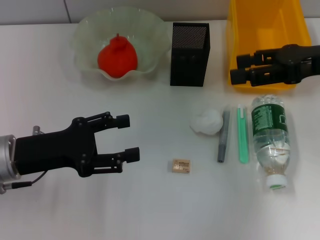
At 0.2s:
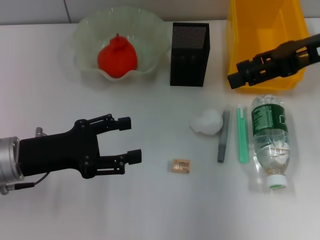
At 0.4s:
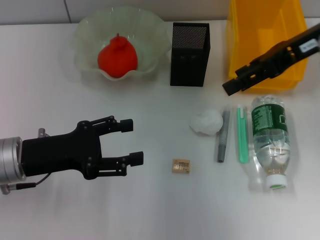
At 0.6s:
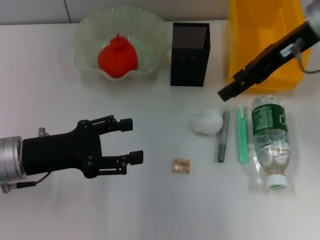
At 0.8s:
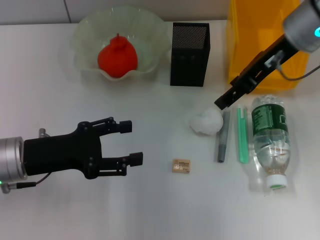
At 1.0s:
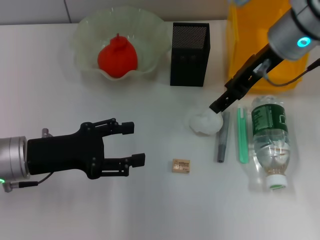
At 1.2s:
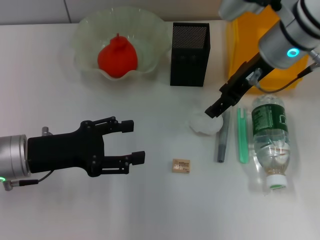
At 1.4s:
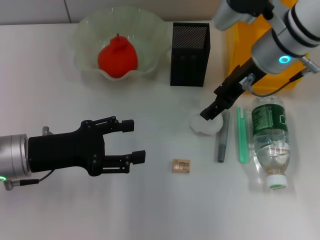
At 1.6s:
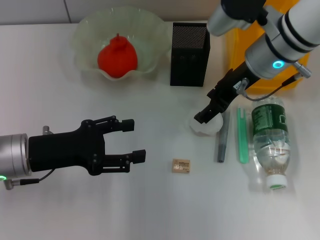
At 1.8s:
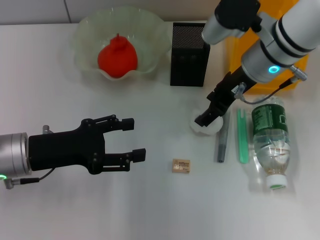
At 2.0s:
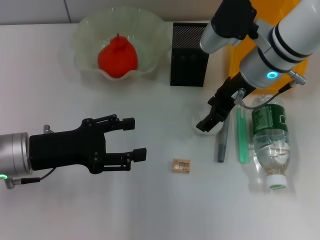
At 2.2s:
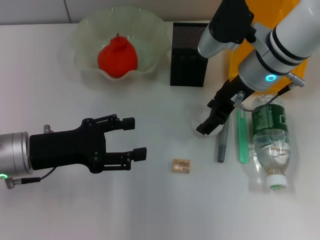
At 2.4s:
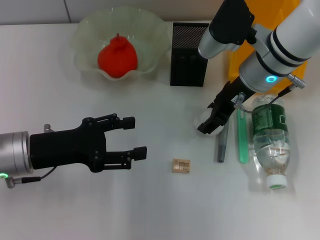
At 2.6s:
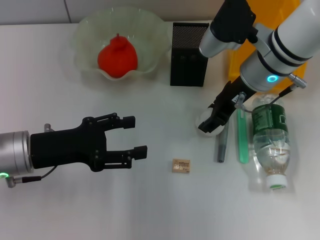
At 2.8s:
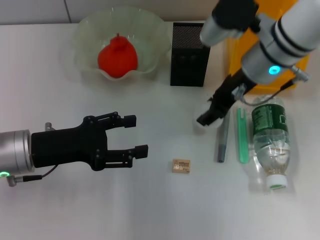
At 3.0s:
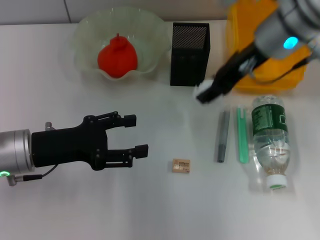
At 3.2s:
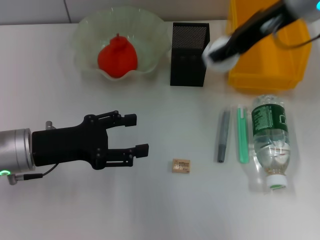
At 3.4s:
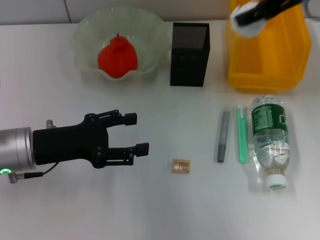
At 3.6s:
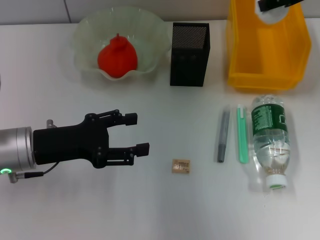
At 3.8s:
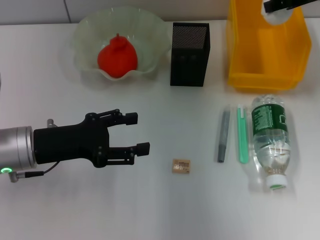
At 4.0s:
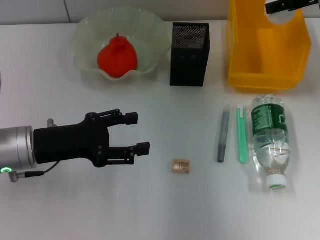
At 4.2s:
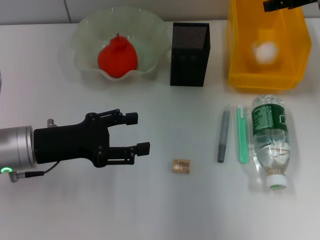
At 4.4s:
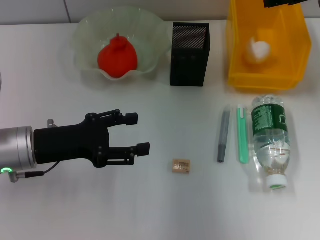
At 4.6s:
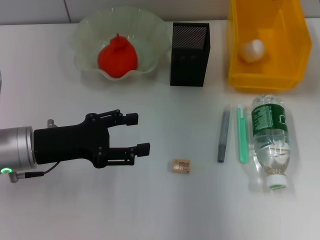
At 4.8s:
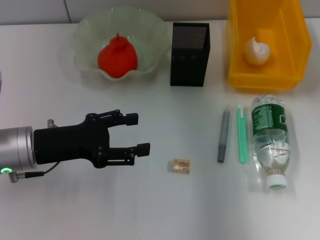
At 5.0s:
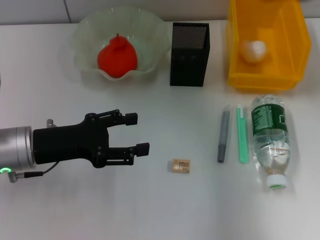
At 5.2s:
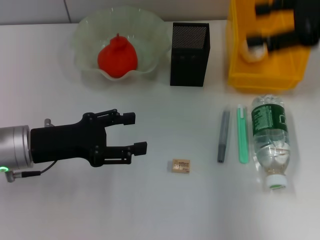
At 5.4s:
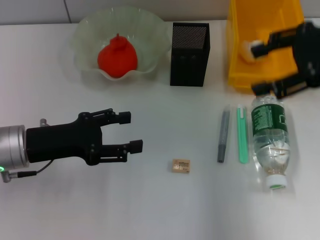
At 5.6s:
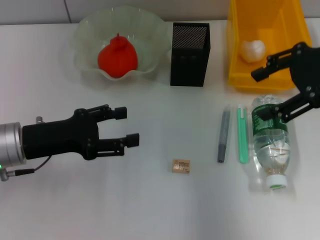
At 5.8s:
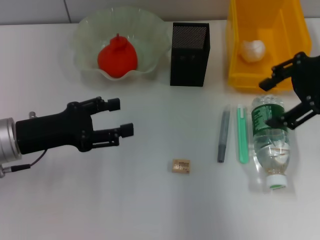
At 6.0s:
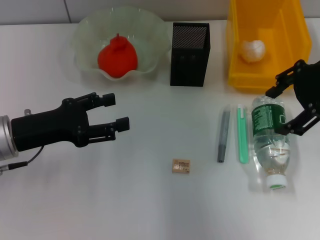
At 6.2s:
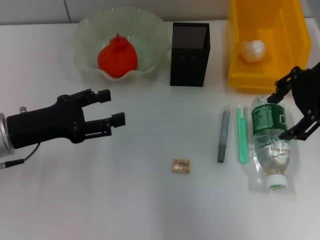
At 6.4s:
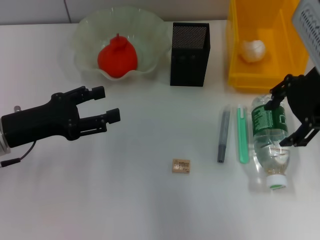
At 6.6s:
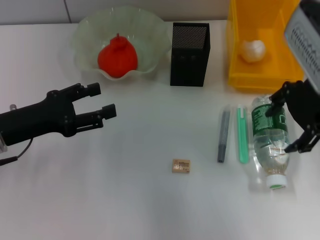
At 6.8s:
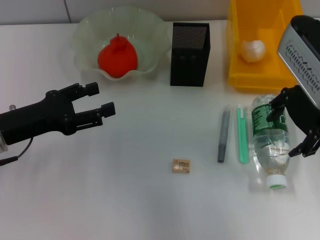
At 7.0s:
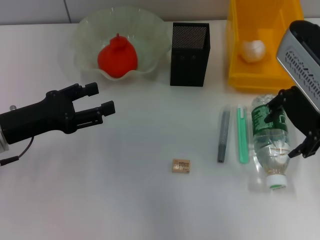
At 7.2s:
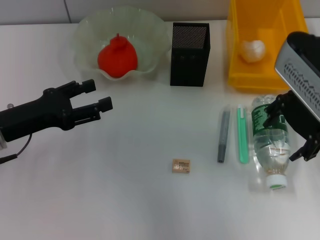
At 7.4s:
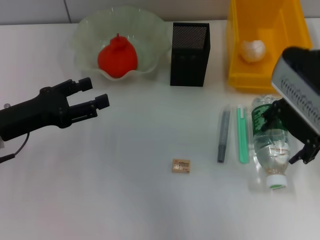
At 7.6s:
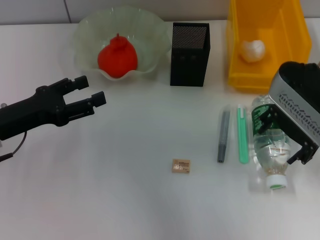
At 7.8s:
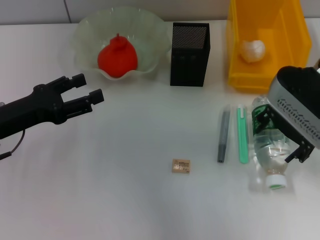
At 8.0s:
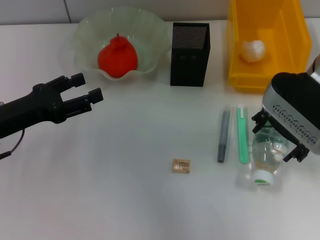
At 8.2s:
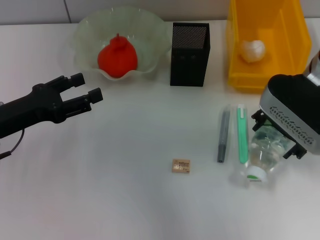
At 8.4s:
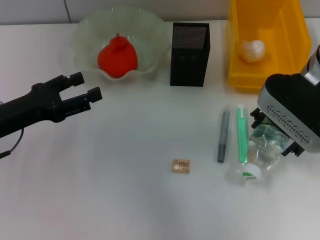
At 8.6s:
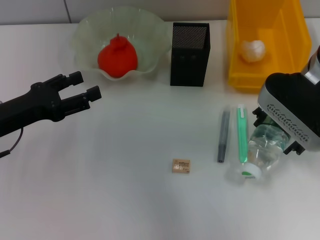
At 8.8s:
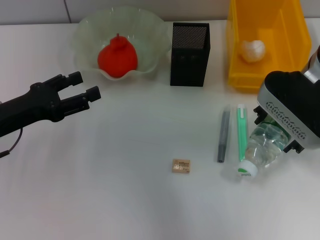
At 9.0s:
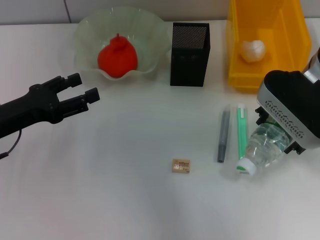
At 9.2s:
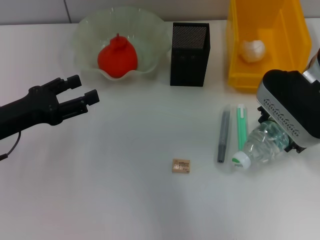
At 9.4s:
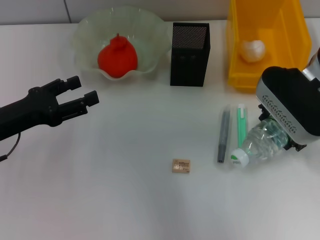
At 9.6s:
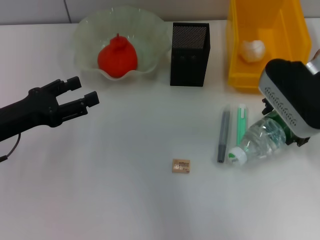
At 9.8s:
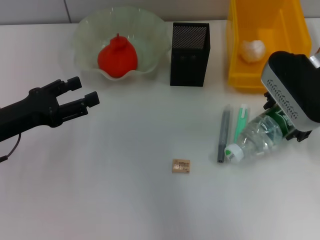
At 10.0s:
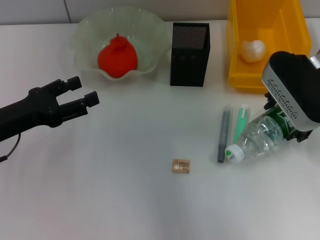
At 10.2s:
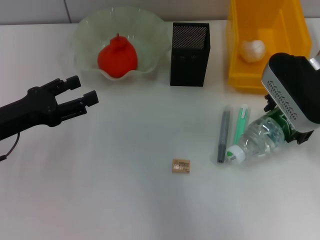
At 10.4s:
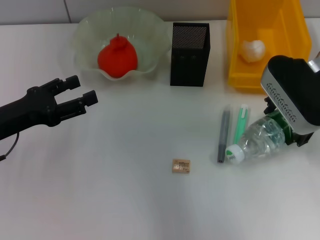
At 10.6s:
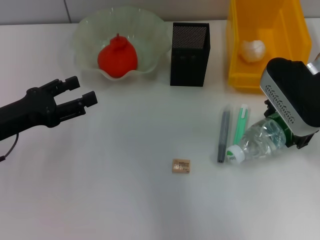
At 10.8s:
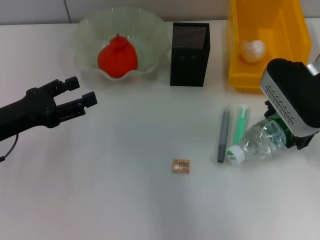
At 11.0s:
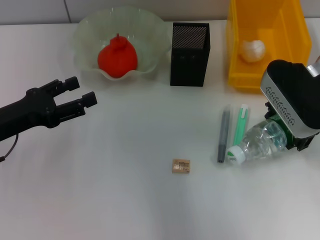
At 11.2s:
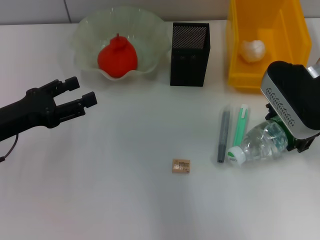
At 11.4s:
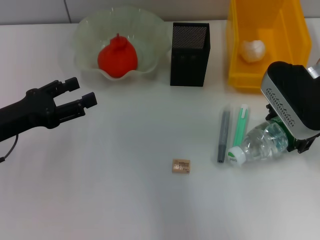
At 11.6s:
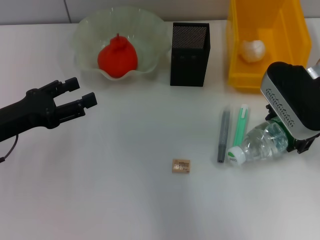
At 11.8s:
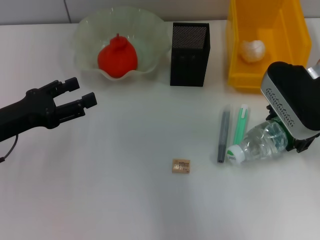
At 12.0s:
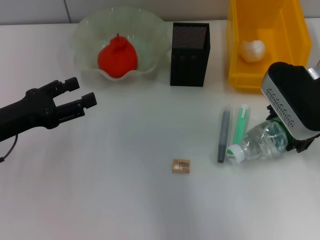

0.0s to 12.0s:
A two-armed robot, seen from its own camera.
Step, 0.0s to 2.6s: Grab the paper ball with the right hand.
Step, 2.8s to 4.2s: Place the paper ball into the trash can with the right hand.
0.0s to 1.6s: The right gripper travels to the left and forward by approximately 15 cm.
1.6s to 3.0s: The right gripper travels upward by some 5 cm.
3.0s to 4.4s: The right gripper is displaced to the right by approximately 10 cm, and opens its fingers.
4.4s to 6.0s: The right gripper shifts about 10 cm backward.
6.0s to 7.6s: The right gripper travels to the left by some 5 cm.
7.6s to 10.4s: The grippers make only small movements.
10.4s to 12.0s: Both grippers stay put.

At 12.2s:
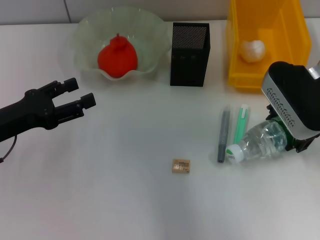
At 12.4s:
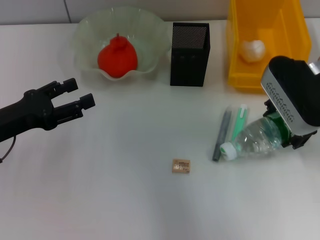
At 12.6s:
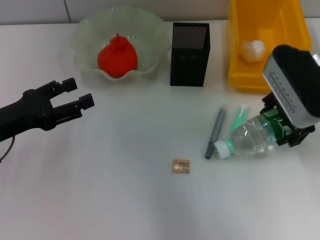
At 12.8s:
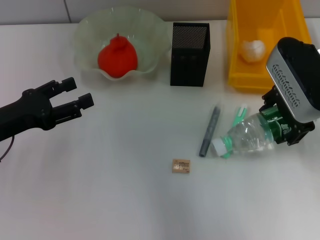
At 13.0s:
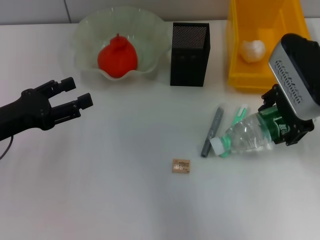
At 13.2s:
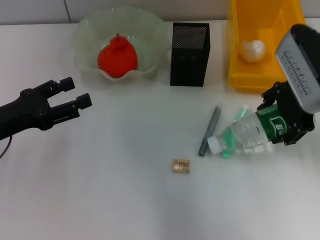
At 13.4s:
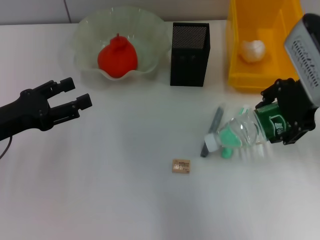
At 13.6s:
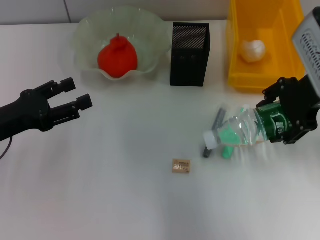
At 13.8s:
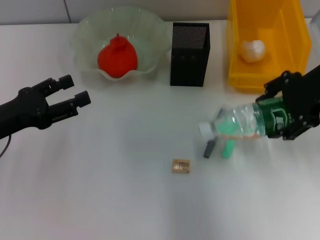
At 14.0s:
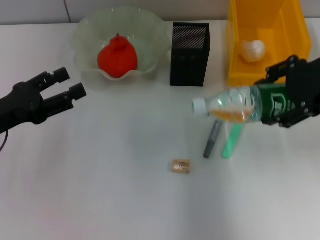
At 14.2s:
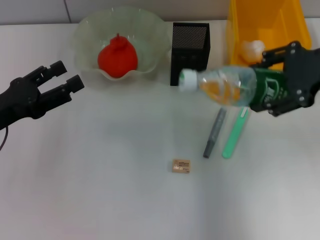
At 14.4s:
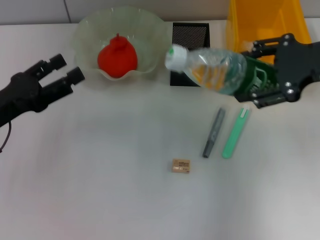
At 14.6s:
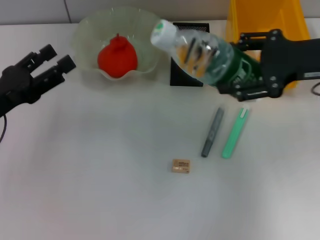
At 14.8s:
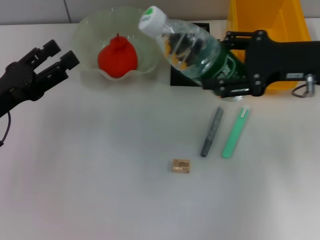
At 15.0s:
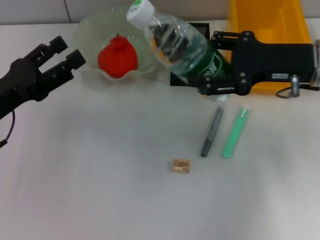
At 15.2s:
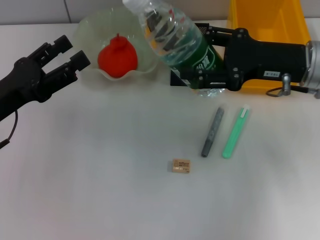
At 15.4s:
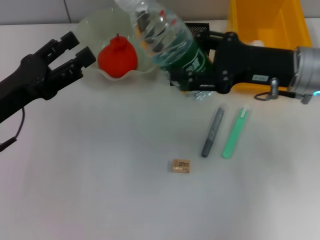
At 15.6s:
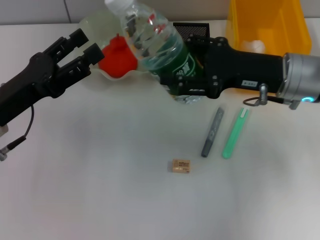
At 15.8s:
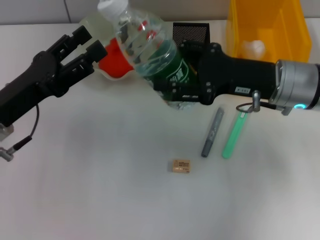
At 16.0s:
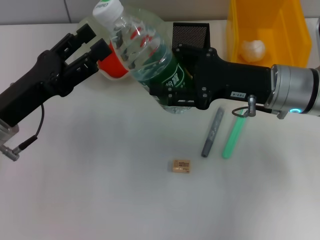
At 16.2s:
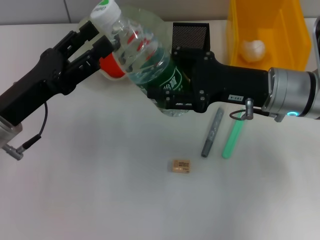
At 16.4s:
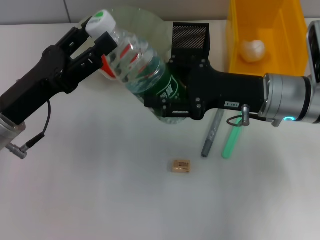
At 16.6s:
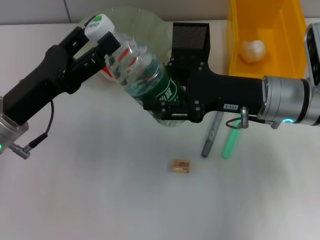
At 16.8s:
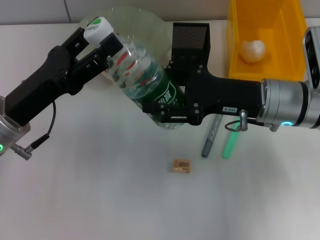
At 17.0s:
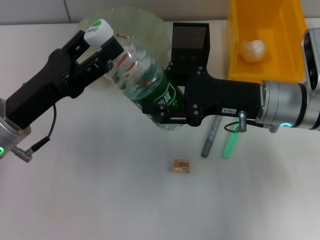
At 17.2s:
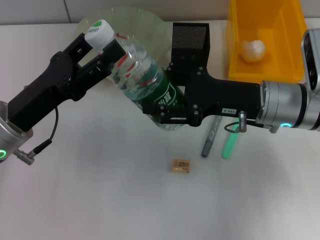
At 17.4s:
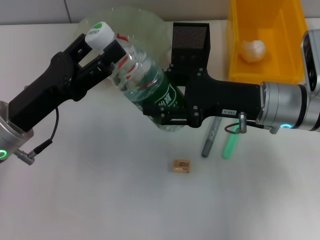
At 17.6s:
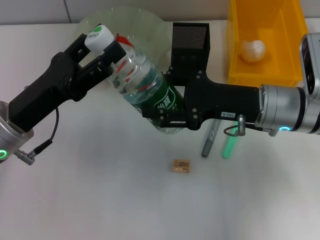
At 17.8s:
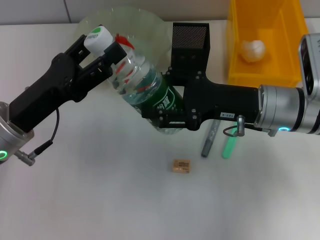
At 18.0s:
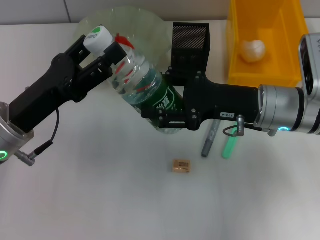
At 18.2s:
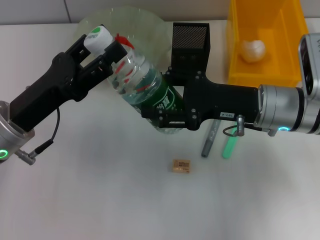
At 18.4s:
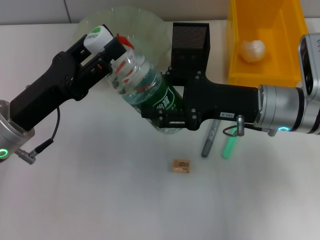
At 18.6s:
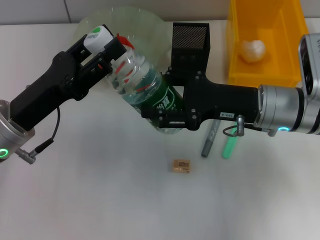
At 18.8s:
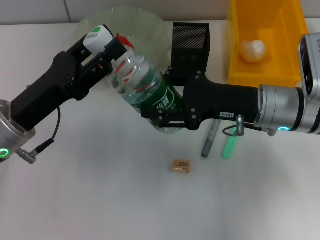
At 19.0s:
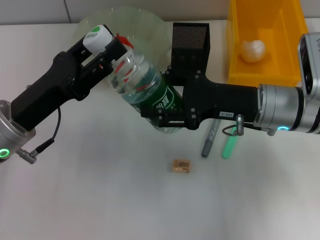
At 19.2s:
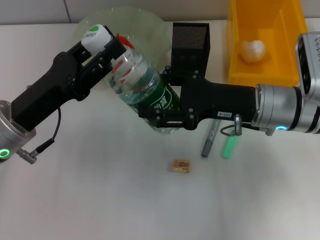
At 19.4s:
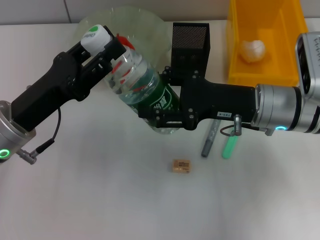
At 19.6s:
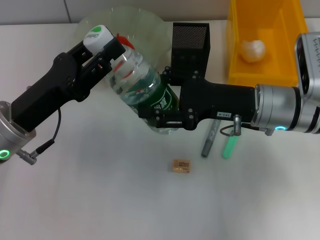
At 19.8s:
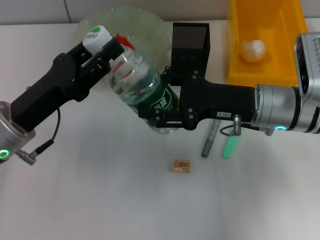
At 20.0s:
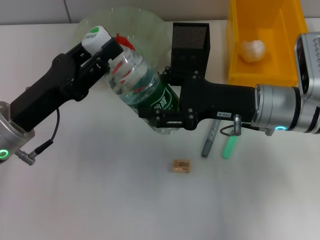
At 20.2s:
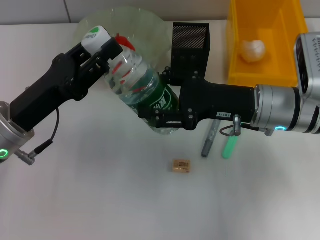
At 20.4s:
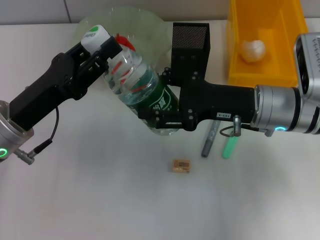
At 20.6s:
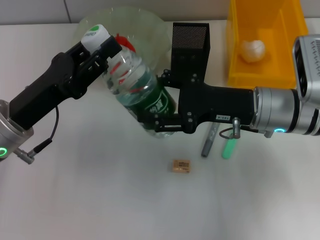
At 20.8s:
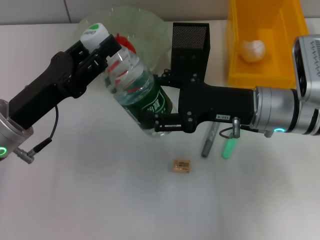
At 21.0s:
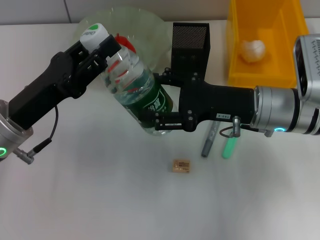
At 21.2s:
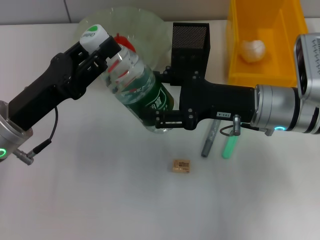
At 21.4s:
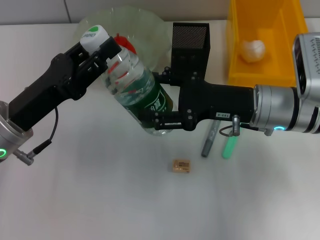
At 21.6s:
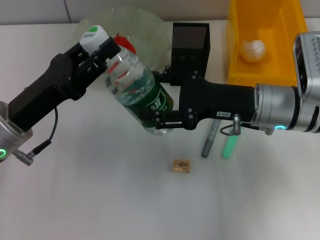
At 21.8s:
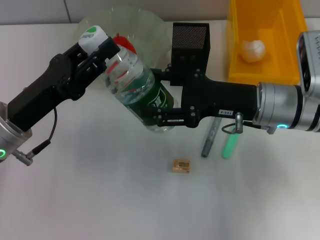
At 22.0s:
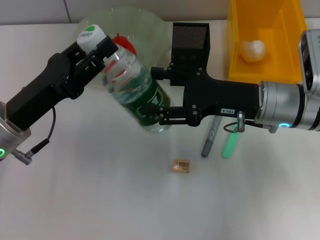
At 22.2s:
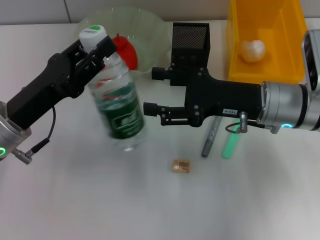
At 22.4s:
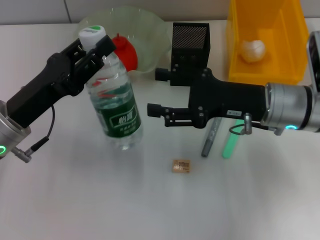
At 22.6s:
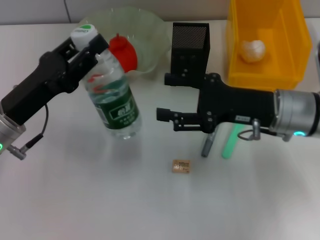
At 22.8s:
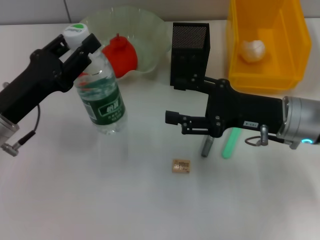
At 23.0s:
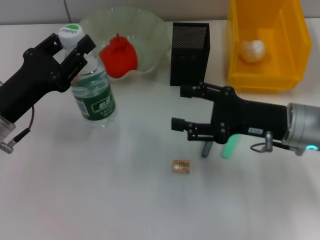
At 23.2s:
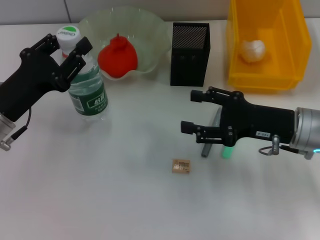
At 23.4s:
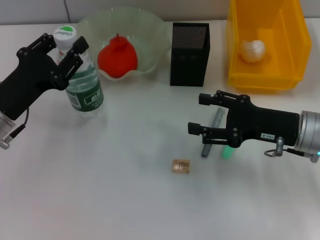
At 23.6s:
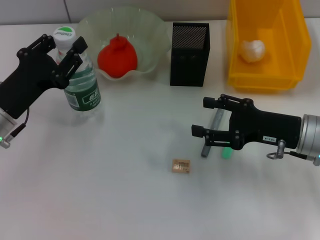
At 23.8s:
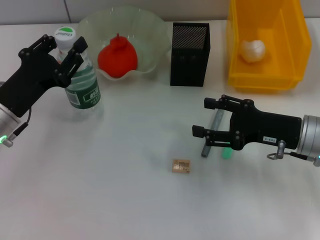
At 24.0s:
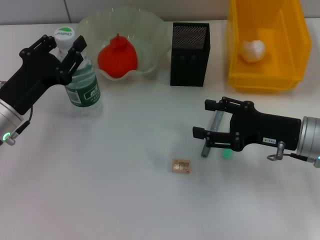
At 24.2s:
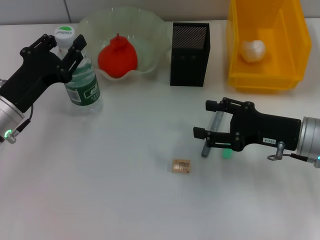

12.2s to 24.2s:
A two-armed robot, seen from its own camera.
Step, 12.4s to 22.0s: Pass the water bottle from the right hand to the left hand.
12.2s to 13.8s: The right gripper goes roughly 5 cm upward.
13.8s to 15.2s: The right gripper is displaced downward by some 5 cm.
15.2s to 16.6s: The right gripper changes place by about 5 cm.
16.6s to 18.2s: The two grippers keep their place.
18.2s to 19.8s: The left gripper closes.
19.8s to 21.2s: Both grippers stay put.
21.2s to 22.6s: The grippers move only a little.
22.6s to 24.2s: The right gripper shifts by about 5 cm.
